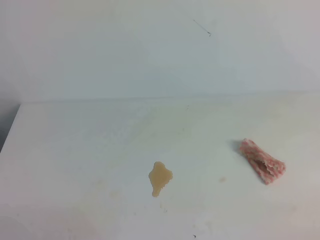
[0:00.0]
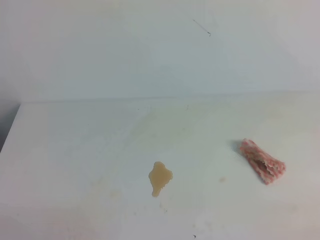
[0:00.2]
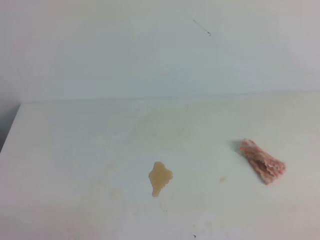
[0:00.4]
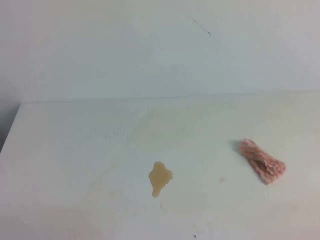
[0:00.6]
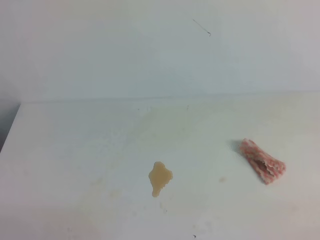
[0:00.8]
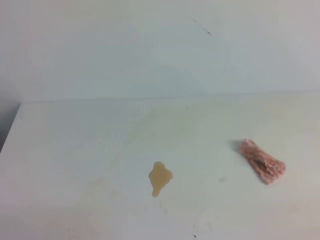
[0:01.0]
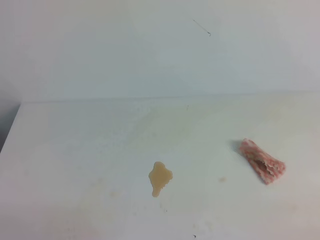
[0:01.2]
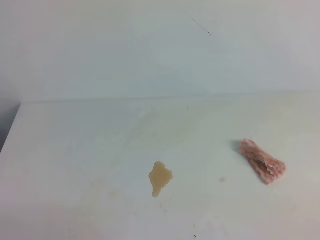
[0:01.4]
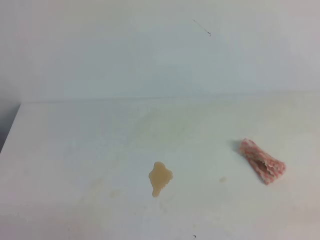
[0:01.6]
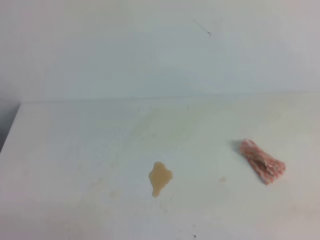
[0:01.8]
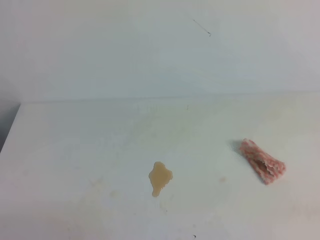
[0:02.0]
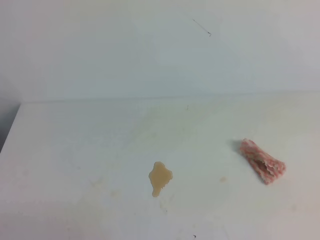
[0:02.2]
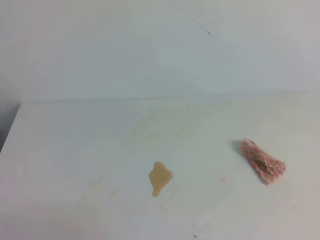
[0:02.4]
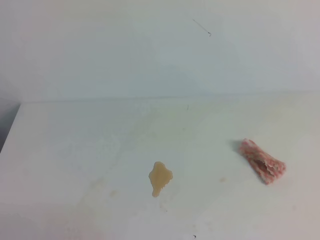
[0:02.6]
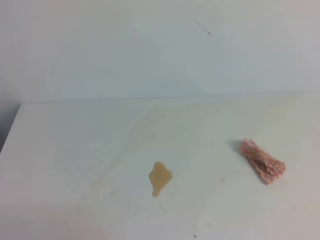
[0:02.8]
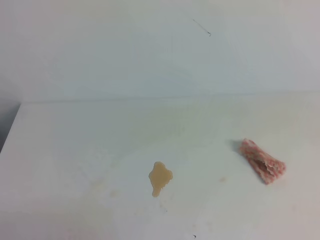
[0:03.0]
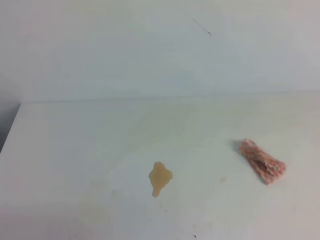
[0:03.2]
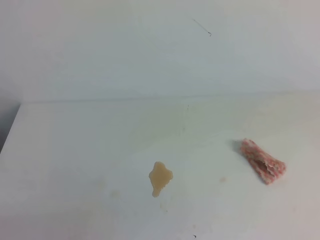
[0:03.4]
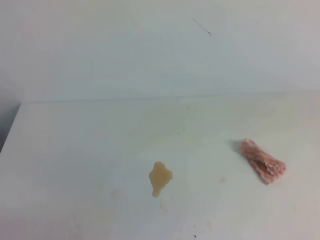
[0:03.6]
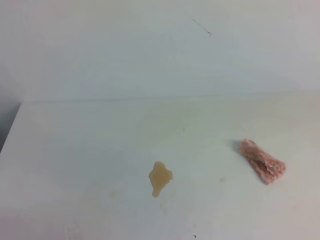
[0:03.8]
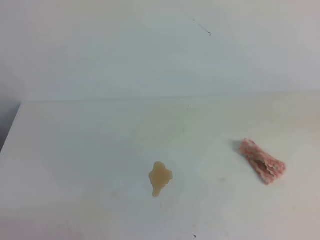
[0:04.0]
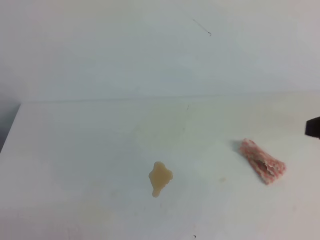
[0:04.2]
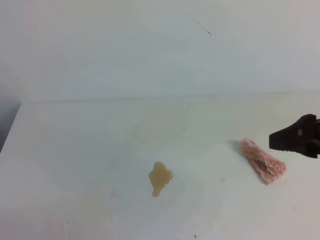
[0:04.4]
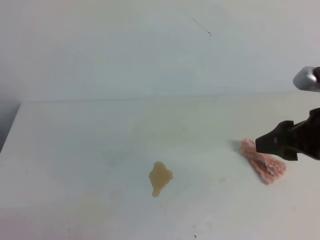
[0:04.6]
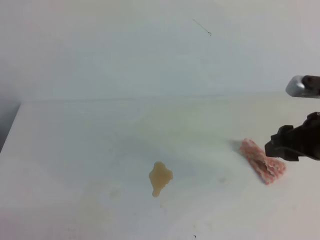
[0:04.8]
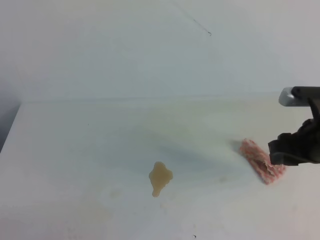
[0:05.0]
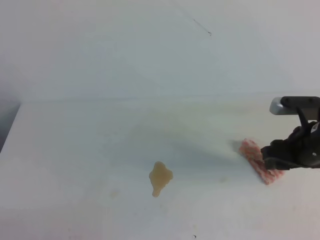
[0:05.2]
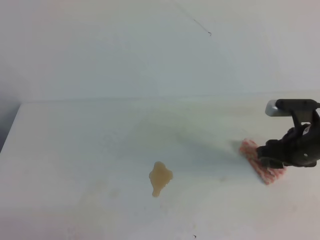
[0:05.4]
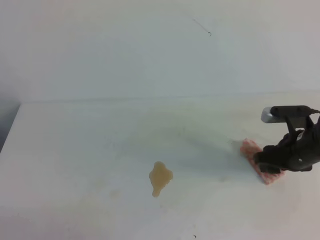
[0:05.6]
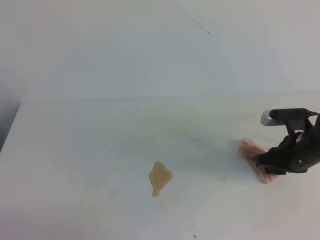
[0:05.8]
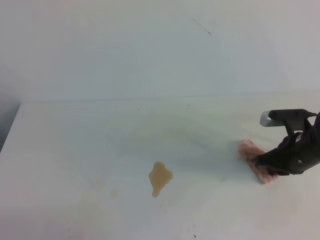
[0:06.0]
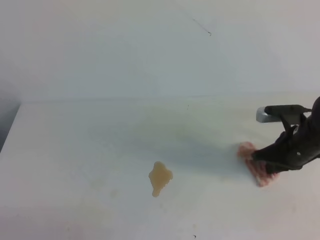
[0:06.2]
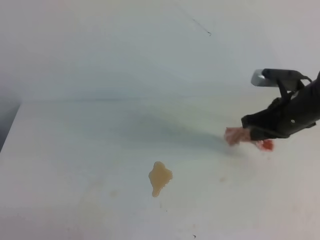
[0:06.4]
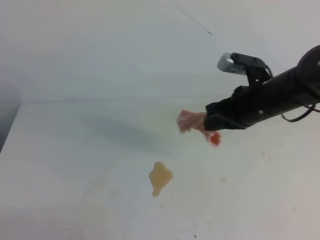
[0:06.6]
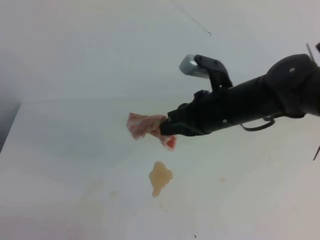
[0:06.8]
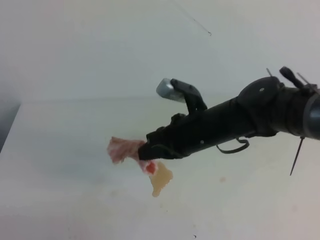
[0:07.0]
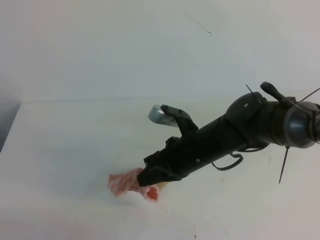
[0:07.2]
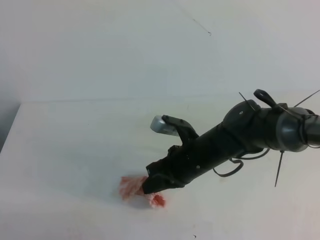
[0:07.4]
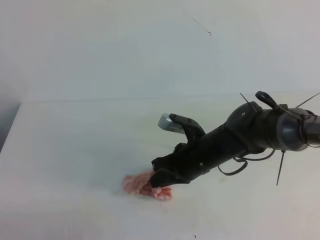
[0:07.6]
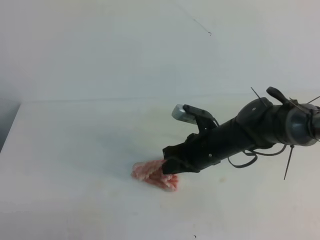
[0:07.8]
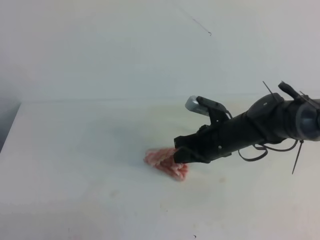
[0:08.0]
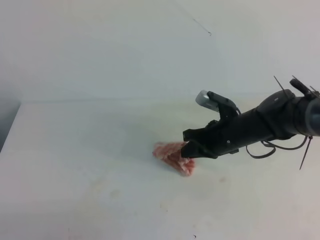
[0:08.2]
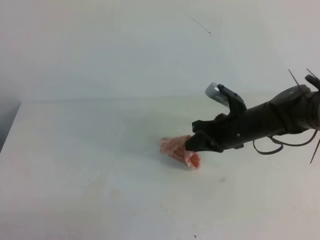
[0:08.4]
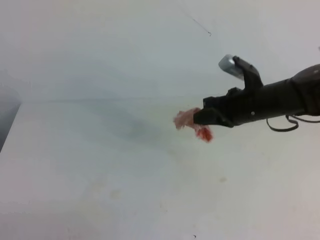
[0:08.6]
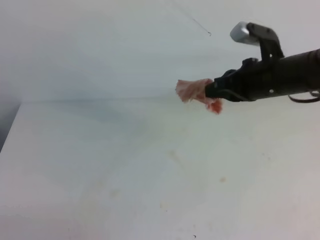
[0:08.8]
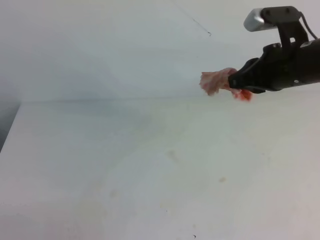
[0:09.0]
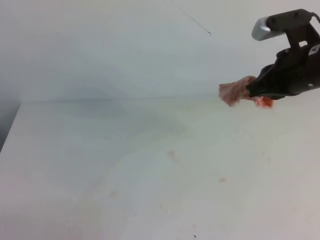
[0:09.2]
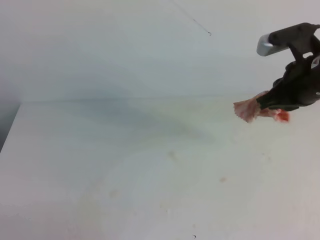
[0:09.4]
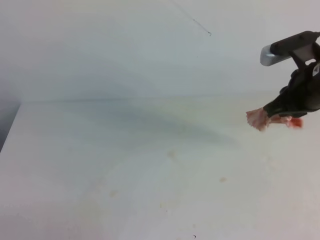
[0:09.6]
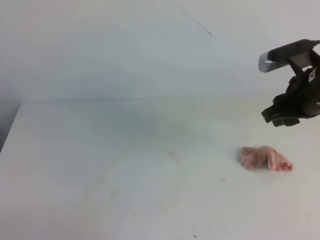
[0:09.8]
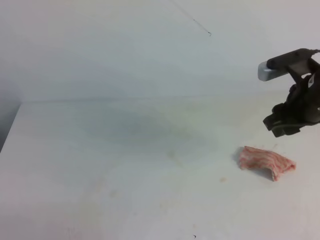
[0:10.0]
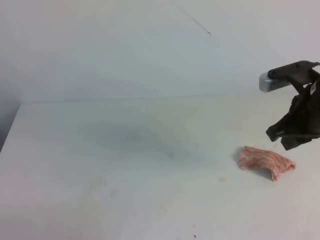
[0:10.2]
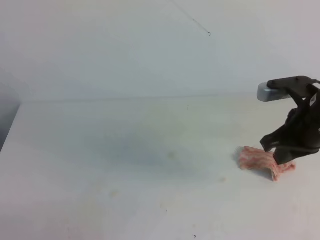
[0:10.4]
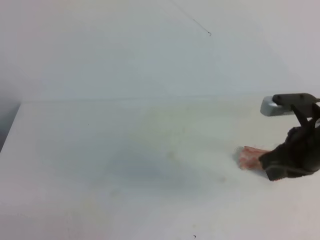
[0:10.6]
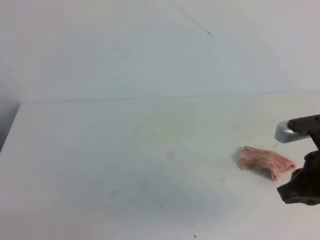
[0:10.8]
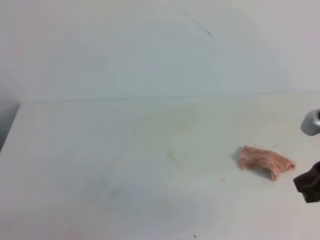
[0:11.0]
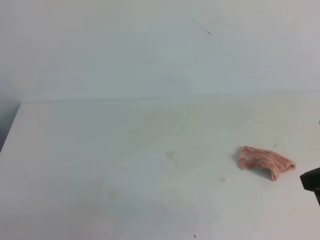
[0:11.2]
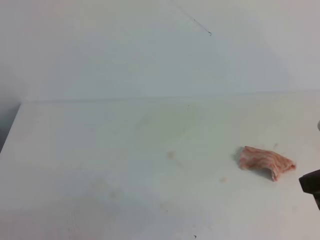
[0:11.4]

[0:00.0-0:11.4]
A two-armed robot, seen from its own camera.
0:04.2 to 0:05.6: The right gripper travels downward and forward by roughly 20 cm.
0:05.6 to 0:07.2: The right gripper heads to the left, covering approximately 20 cm, and closes.
0:07.2 to 0:08.6: The right gripper heads to the right and forward, covering about 10 cm.
0:08.6 to 0:10.0: The right gripper is displaced to the right and upward by approximately 10 cm, and opens.
0:10.0 to 0:11.4: The right gripper goes roughly 15 cm backward, and closes up.

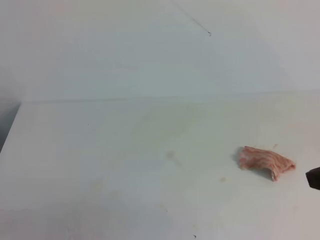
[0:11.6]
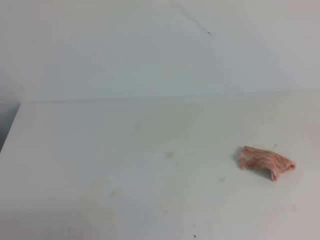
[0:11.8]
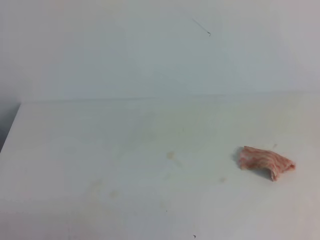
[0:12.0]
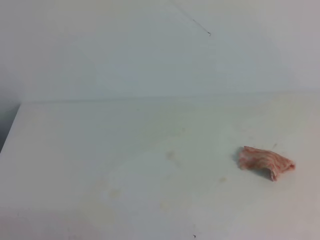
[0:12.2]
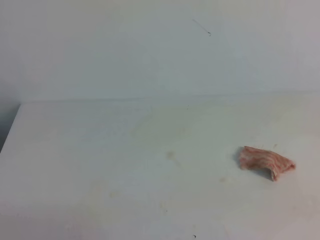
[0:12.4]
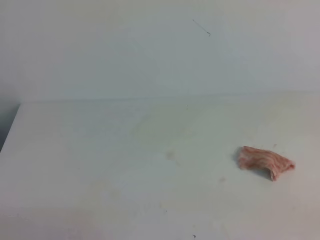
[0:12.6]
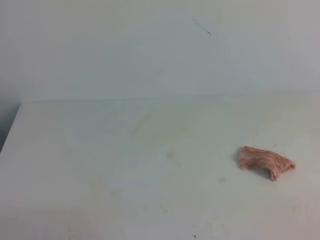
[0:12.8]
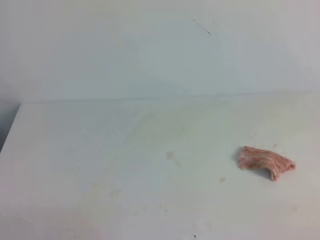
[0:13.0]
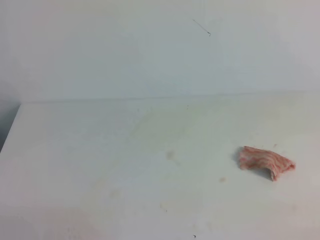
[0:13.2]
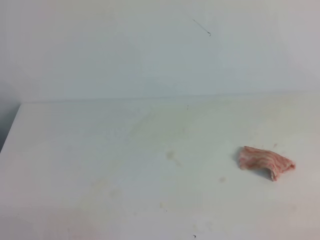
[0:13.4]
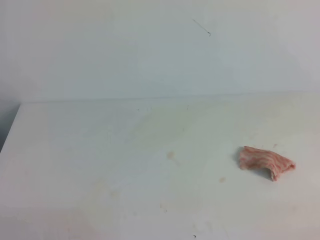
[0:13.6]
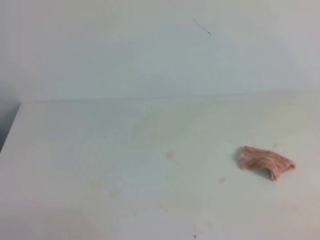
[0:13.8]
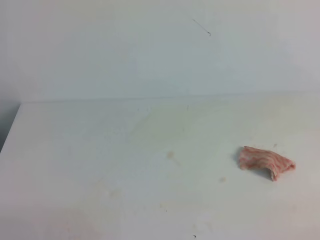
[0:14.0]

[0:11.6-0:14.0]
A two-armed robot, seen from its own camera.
0:11.6 to 0:12.8: The right gripper shifts about 20 cm downward, backward and to the right.

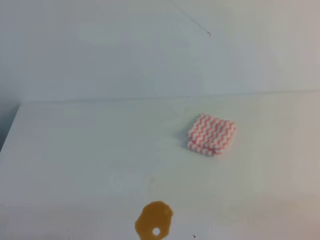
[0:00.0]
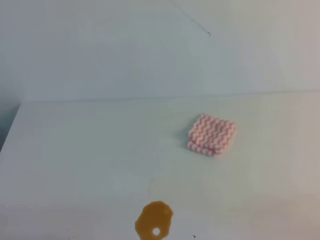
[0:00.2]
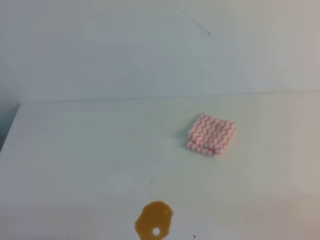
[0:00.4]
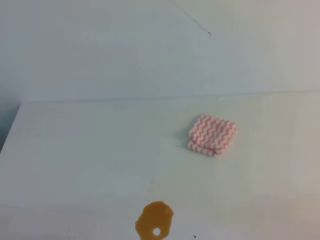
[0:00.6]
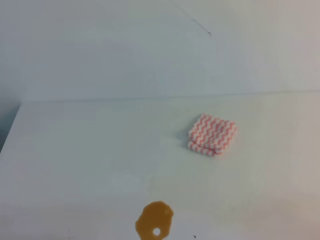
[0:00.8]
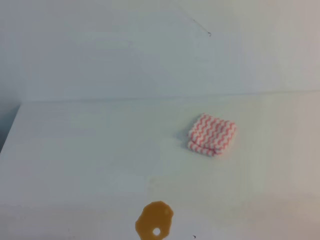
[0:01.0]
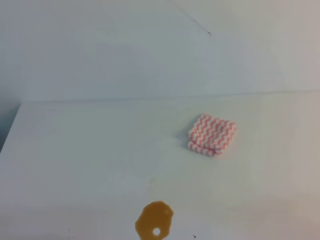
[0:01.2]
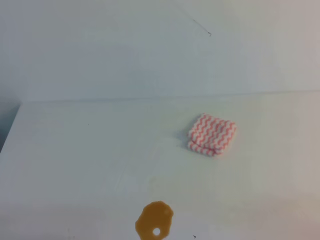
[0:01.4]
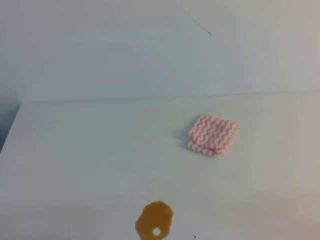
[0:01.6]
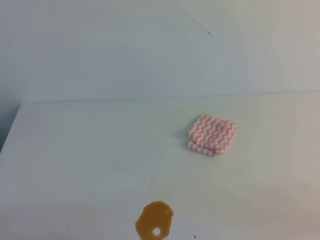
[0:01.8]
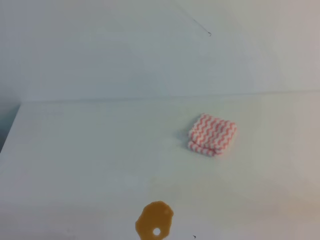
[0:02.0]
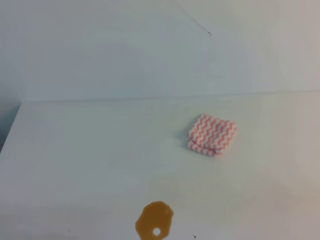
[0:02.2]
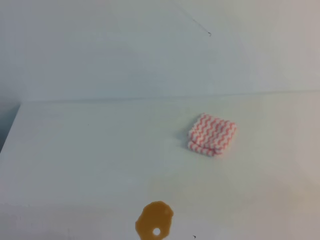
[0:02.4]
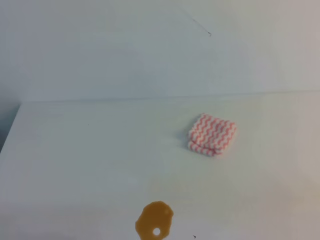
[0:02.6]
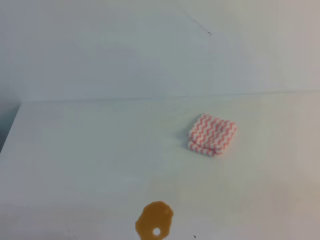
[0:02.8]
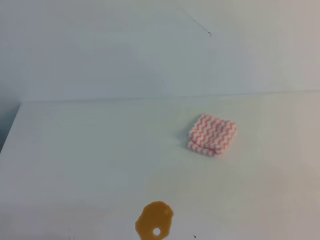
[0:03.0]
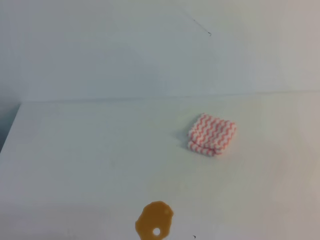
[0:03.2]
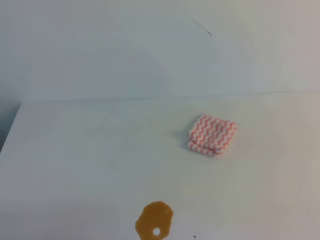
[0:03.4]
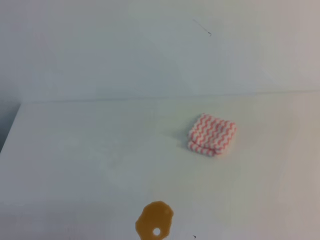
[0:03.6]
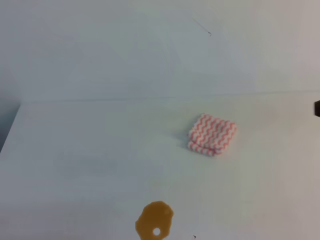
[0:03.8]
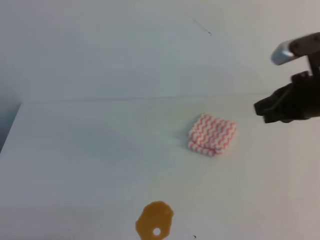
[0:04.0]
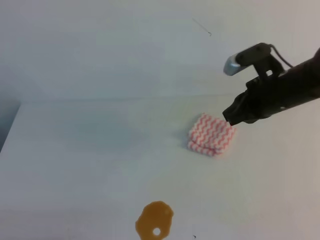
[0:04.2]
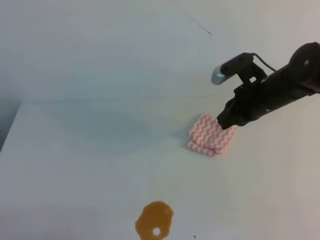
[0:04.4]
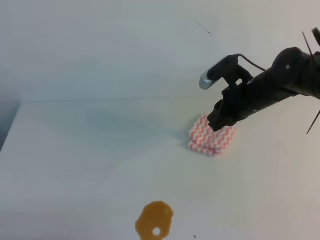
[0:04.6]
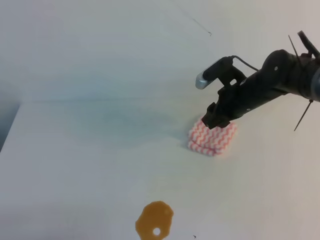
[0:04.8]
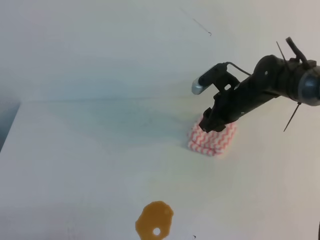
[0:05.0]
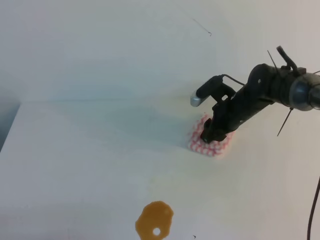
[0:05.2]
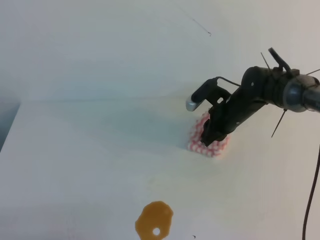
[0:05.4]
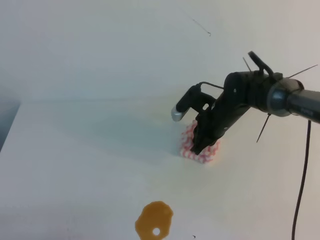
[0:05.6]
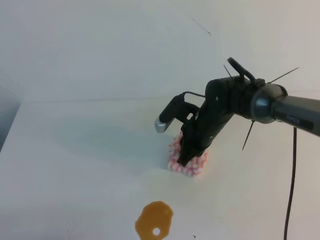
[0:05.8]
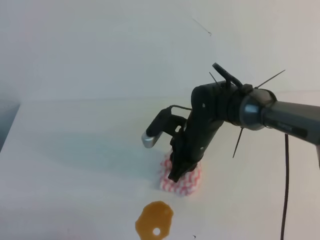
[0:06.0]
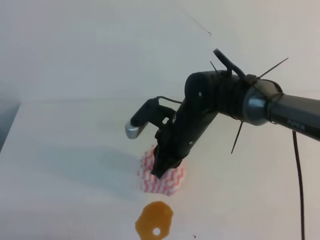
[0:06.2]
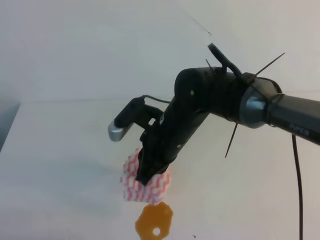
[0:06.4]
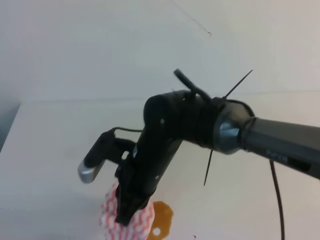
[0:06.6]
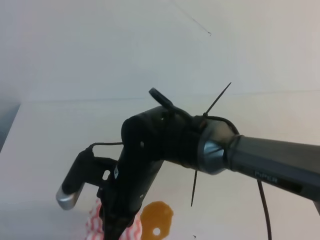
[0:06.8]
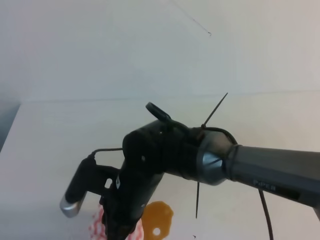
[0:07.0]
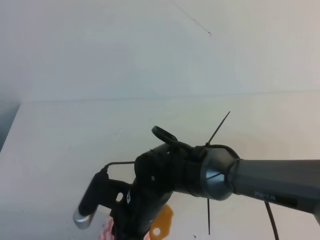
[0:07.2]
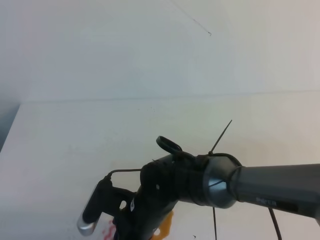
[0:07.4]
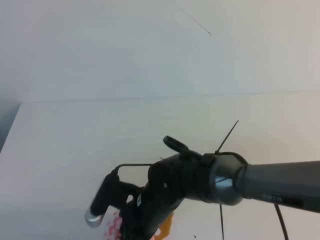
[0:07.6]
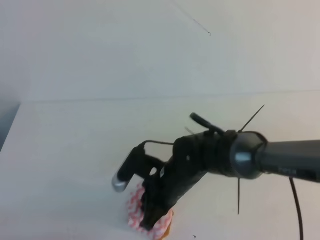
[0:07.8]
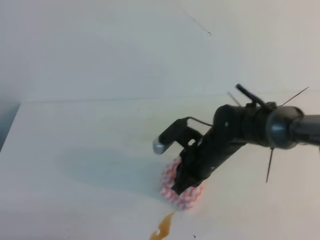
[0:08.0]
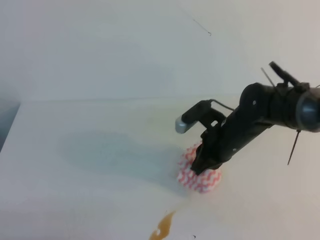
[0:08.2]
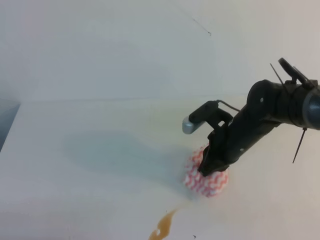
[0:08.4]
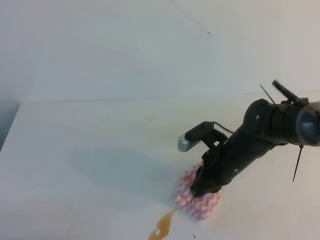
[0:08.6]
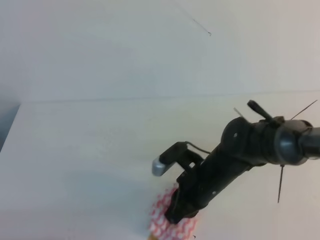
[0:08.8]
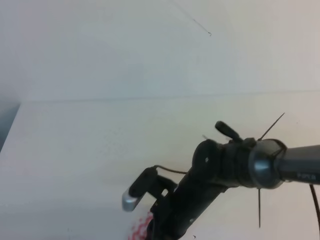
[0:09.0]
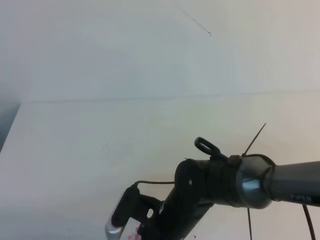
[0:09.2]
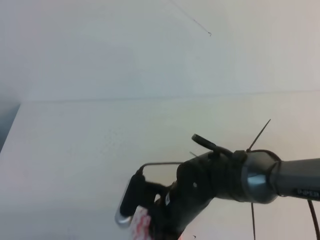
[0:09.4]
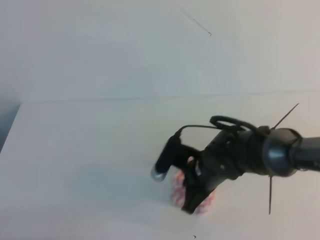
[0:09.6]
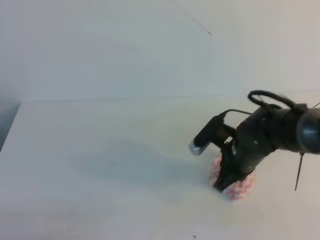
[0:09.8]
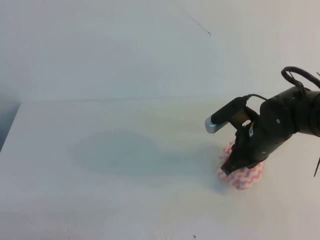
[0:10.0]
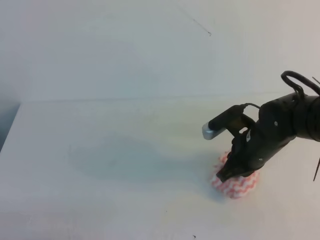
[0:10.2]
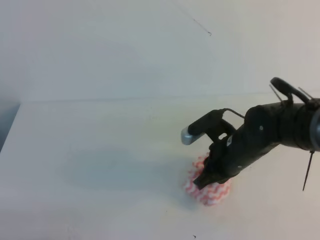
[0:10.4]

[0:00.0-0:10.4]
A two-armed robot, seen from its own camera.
0:00.0 to 0:01.4: Both grippers stay put.
0:03.0 to 0:04.4: The right gripper goes approximately 40 cm forward and to the left.
0:04.4 to 0:06.0: The right gripper is displaced to the left and downward by some 15 cm, and opens and closes again.
0:06.0 to 0:07.4: The right gripper travels backward and to the left by roughly 20 cm.
0:07.4 to 0:09.0: The right gripper shifts approximately 10 cm to the right.
0:09.0 to 0:10.4: The right gripper heads to the right and forward, covering some 10 cm.
